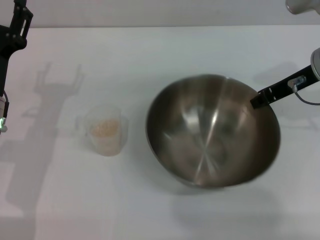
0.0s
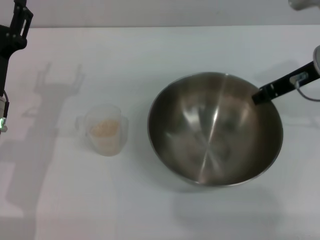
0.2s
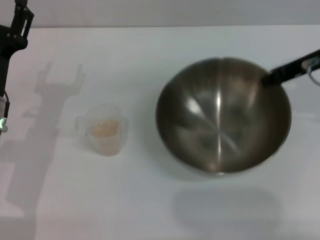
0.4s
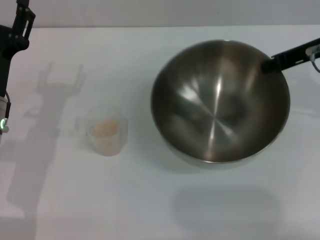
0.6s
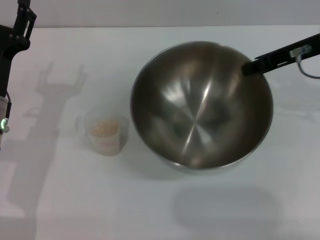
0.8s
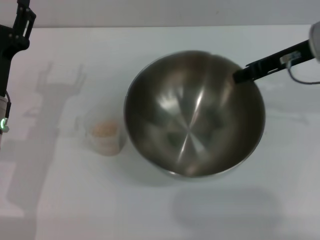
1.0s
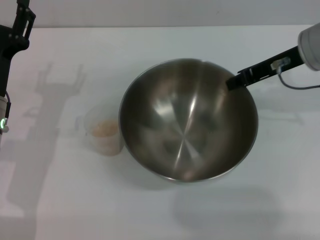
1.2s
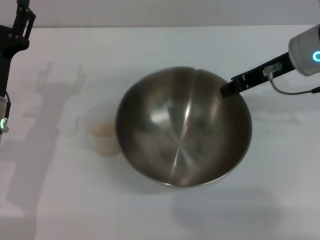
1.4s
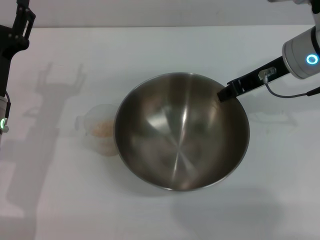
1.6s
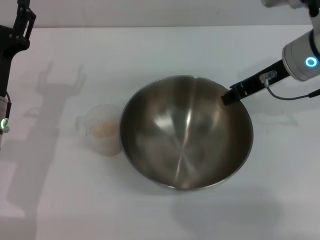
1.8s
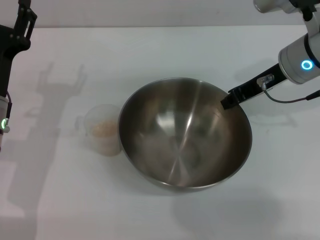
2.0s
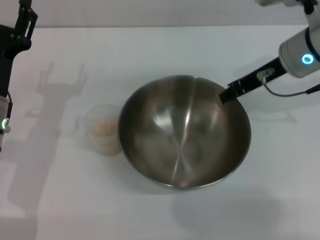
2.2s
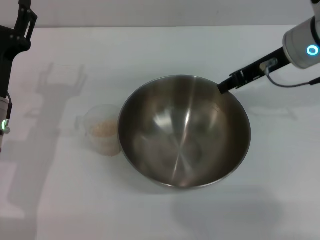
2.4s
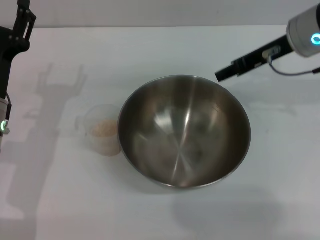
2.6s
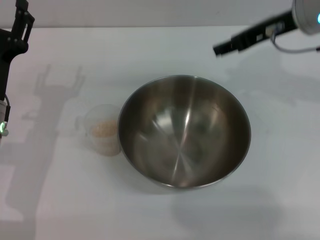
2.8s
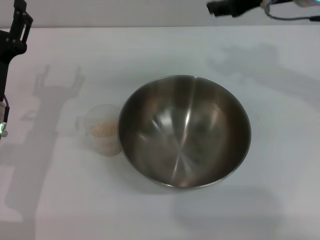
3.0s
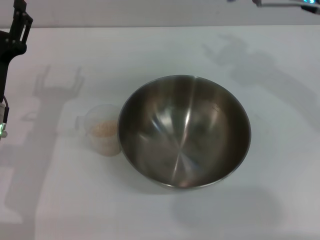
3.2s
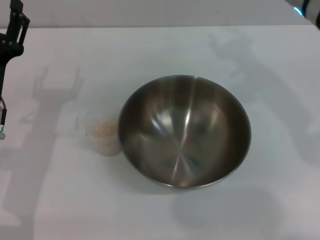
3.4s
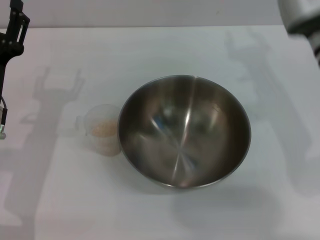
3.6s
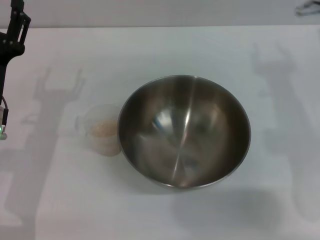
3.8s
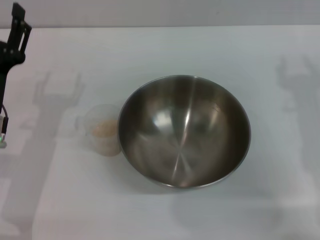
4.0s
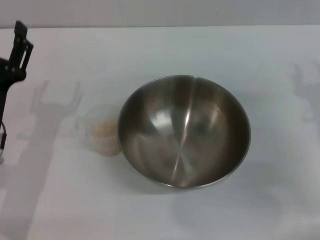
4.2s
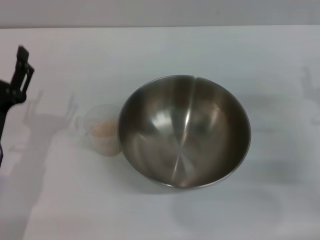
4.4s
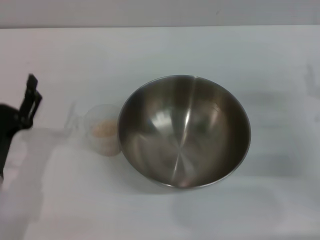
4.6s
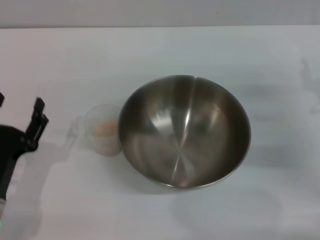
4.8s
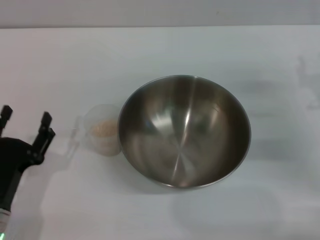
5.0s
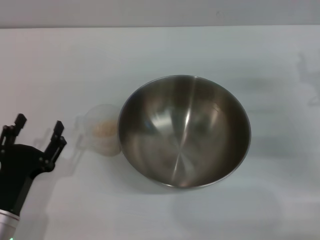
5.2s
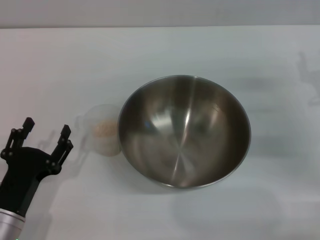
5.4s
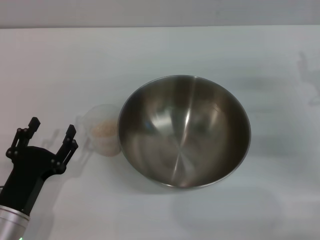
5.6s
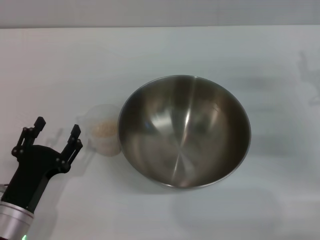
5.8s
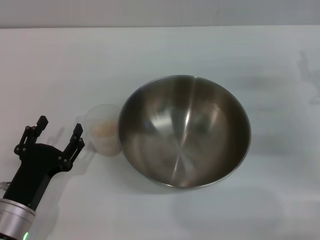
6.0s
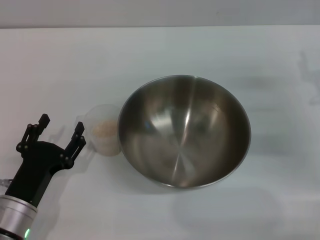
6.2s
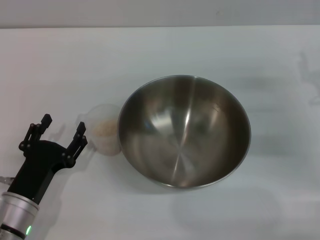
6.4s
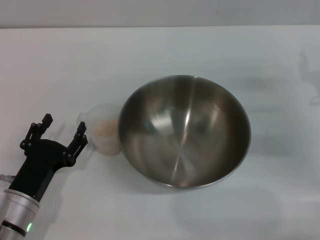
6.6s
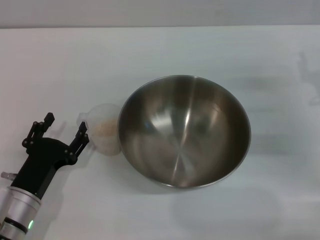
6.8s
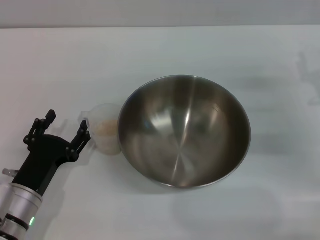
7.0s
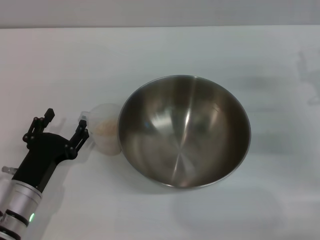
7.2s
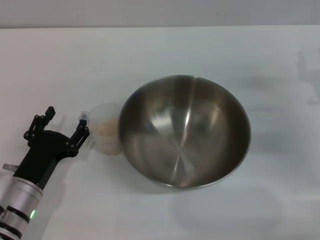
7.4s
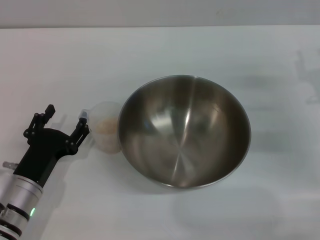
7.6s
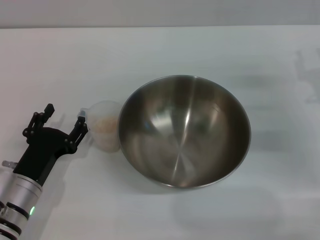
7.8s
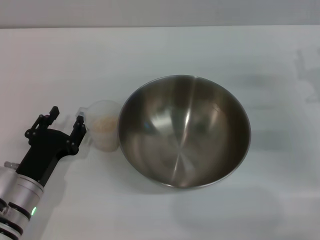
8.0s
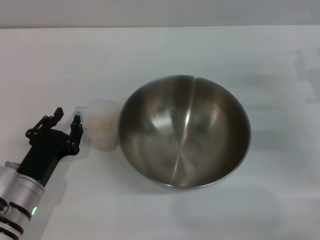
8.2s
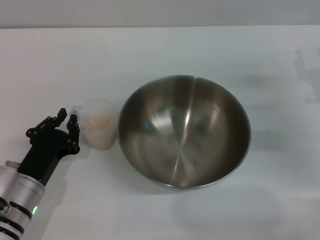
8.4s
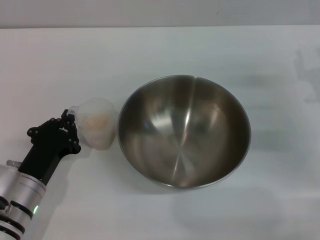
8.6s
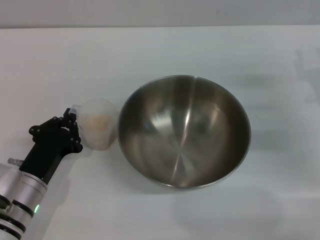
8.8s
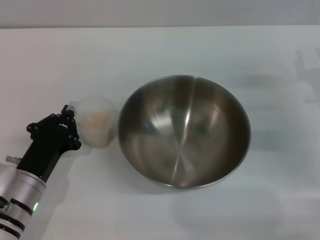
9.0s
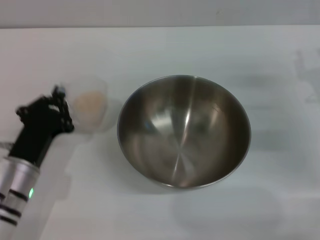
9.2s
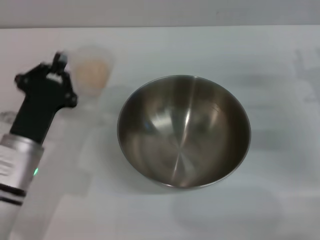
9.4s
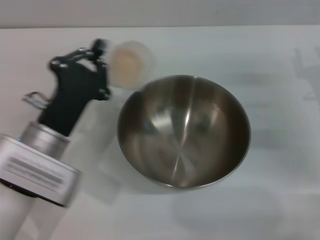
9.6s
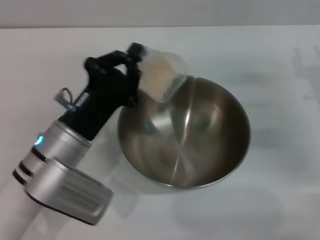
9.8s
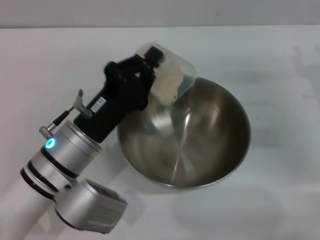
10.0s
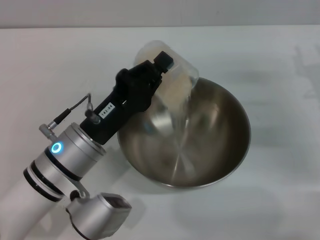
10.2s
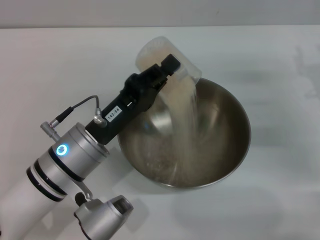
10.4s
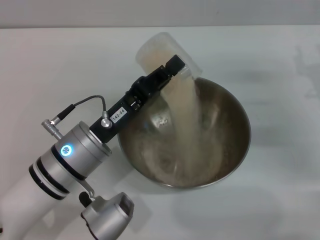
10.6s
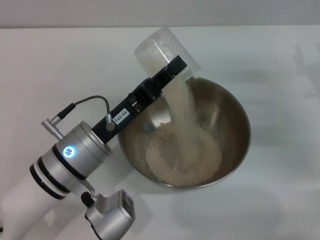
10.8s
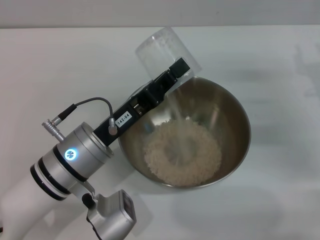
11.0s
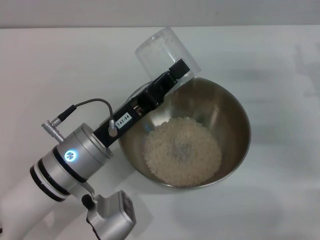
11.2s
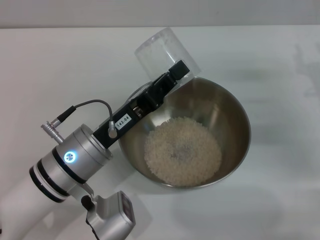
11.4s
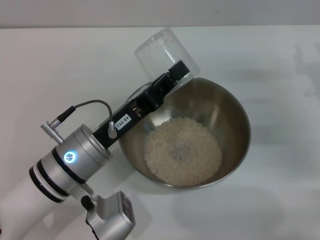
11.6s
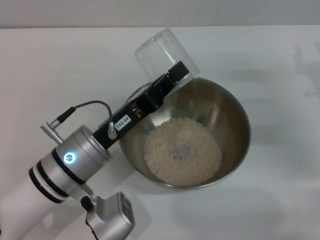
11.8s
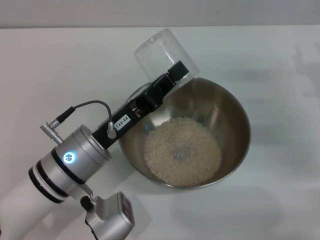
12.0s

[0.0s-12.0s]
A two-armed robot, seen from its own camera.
Task of the whole recording: Place the bowl in the middle of the table with one hand and pour the rice from the grain cup into it with the other hand.
Step, 0.6s to 2.4s: Place the bowl in the center of view with the right gripper.
Step, 2.6s to 9.2s: Pick up the cup with rice in it with the left gripper.
1.6s to 3.0s: The right gripper moves upward, about 5 cm, and opens up.
3.0s to 4.4s: The right gripper goes about 25 cm downward, backward and to the right. Meanwhile the left gripper goes some 5 cm backward.
4.4s to 6.0s: The left gripper goes roughly 5 cm backward.
6.0s to 7.6s: There are only small adjustments of the grippers.
7.6s to 9.0s: The left gripper closes up.
9.0s to 10.4s: The left gripper travels to the right and upward by some 10 cm.
10.4s to 12.0s: The grippers make only small movements.

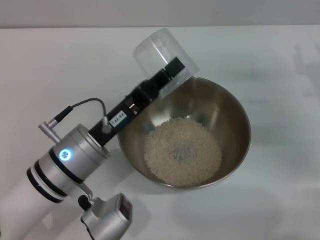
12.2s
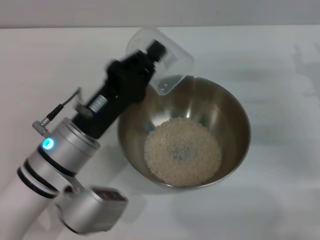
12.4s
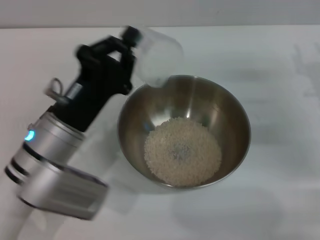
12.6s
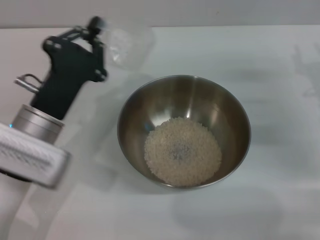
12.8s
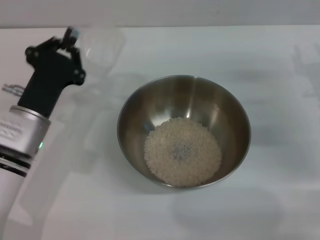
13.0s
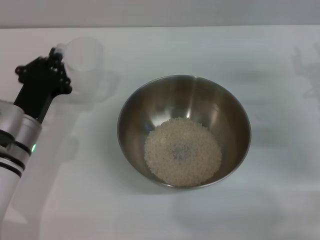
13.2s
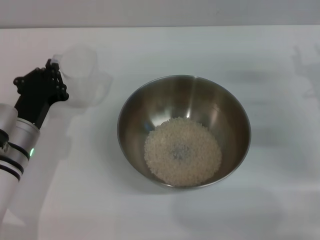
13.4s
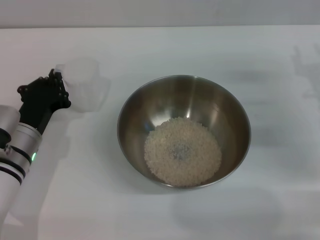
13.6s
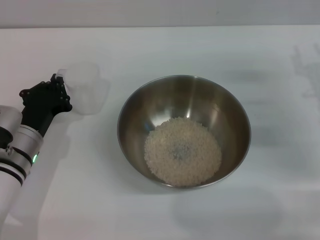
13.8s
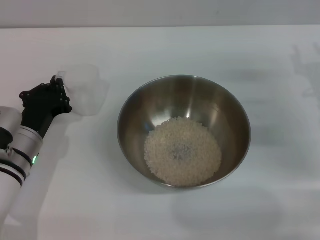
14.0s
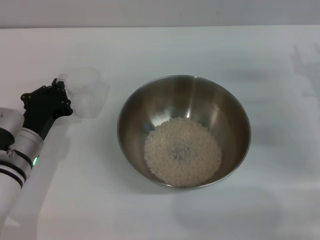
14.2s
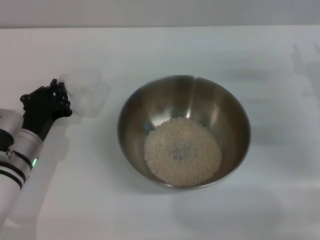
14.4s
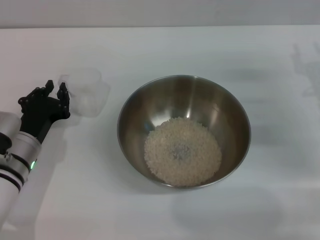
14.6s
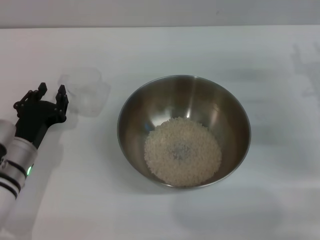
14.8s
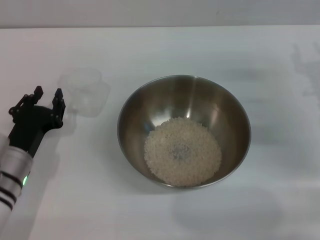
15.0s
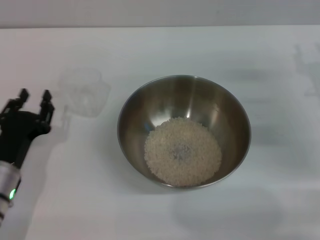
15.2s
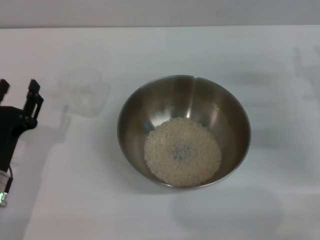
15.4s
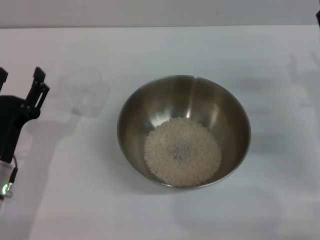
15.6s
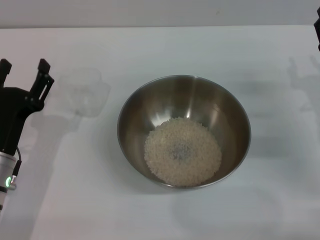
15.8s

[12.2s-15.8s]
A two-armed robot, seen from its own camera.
Task of the whole recording: Place the bowl in the middle of the table with one hand and pour the rice from the grain cup into it with the other hand.
Step, 12.4s to 15.0s: Place the cup on the table with the left gripper.
12.2s to 14.0s: The left gripper moves to the left and downward, about 10 cm.
14.0s to 15.8s: The left gripper travels backward by some 5 cm, and opens its fingers.

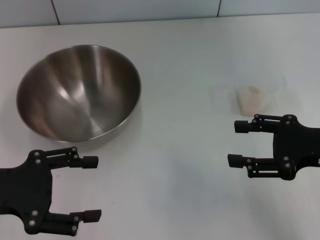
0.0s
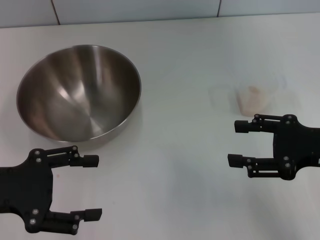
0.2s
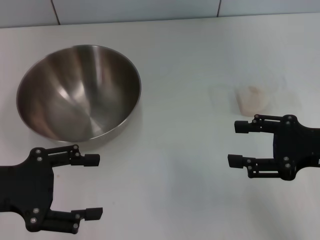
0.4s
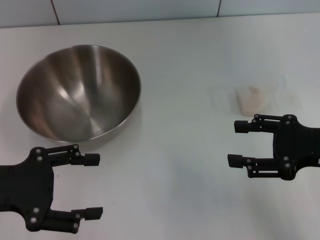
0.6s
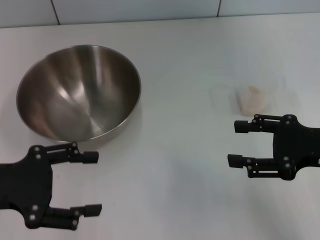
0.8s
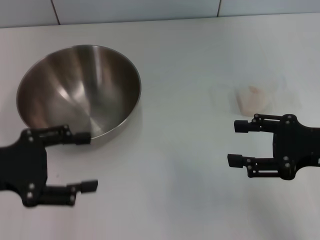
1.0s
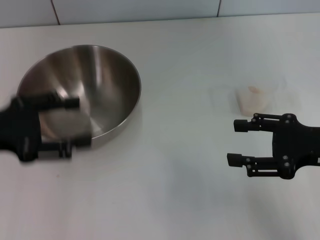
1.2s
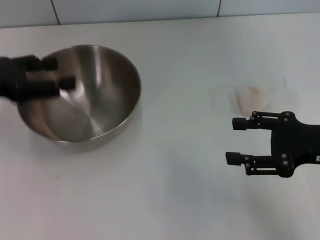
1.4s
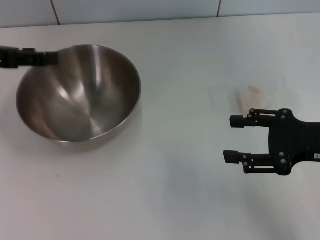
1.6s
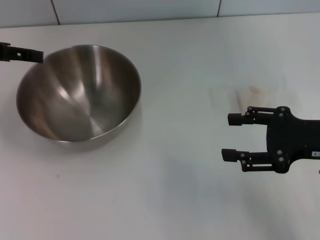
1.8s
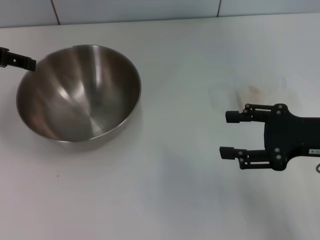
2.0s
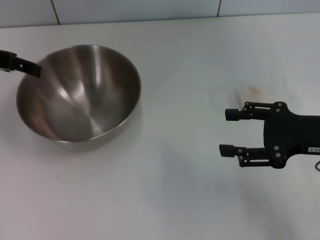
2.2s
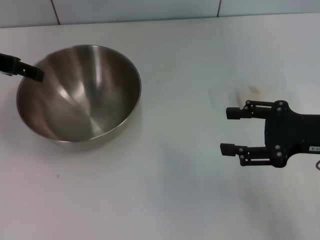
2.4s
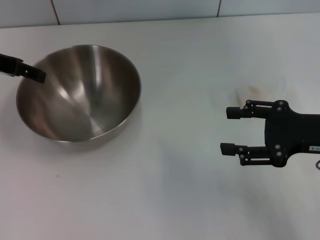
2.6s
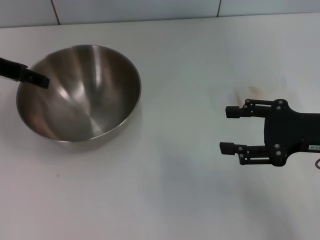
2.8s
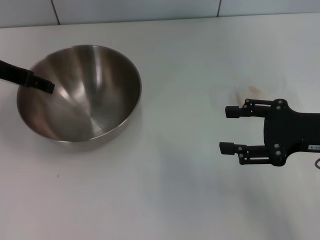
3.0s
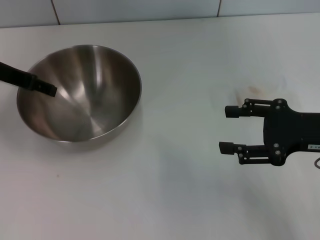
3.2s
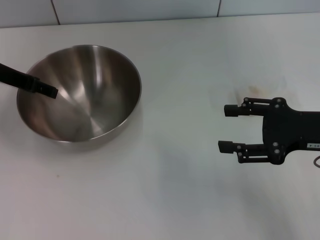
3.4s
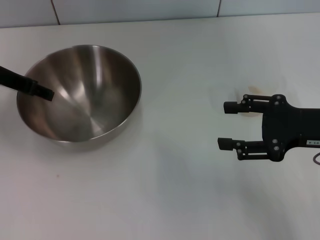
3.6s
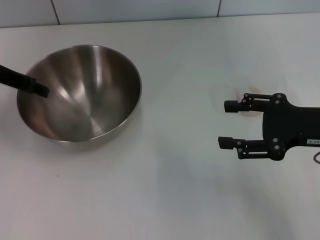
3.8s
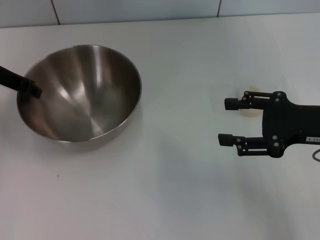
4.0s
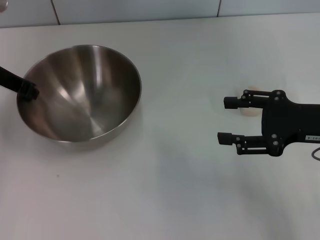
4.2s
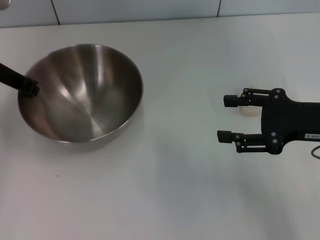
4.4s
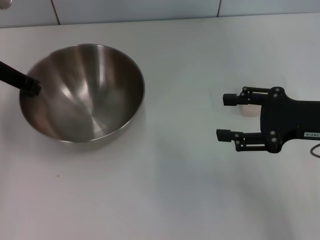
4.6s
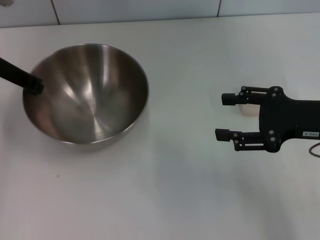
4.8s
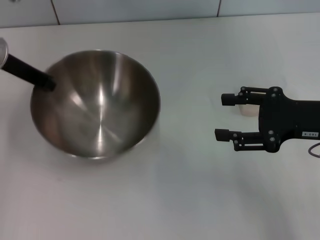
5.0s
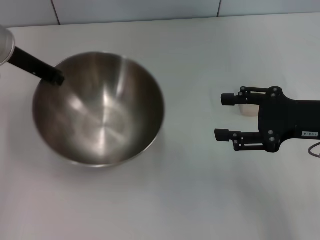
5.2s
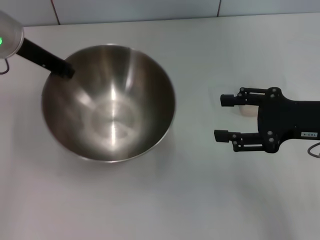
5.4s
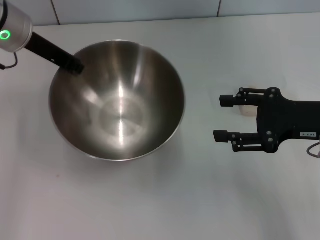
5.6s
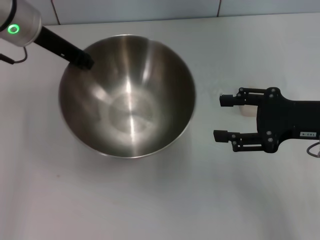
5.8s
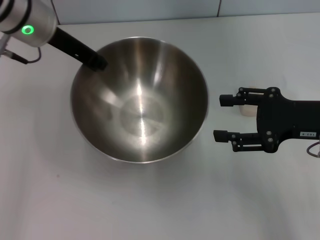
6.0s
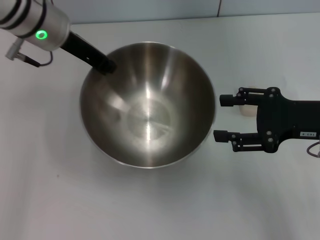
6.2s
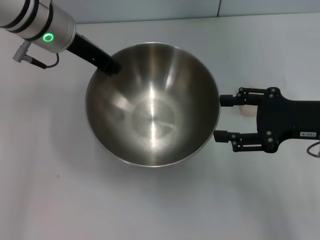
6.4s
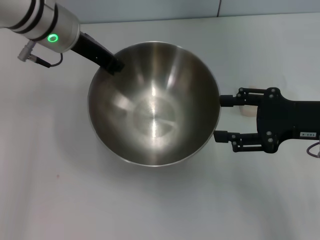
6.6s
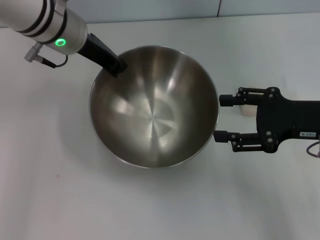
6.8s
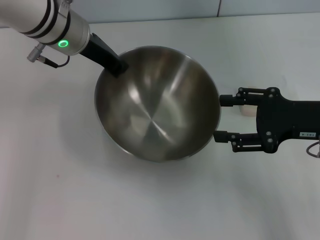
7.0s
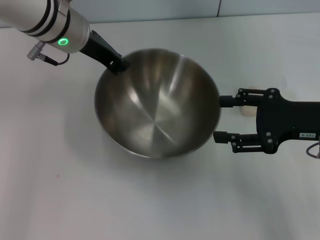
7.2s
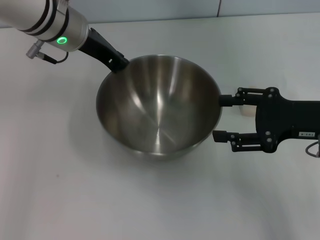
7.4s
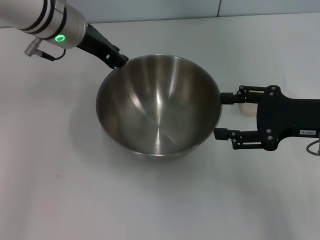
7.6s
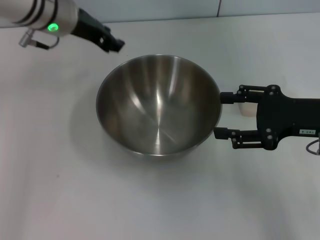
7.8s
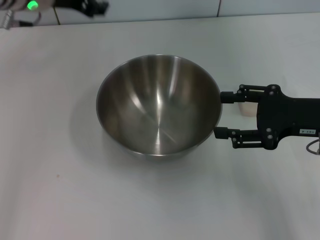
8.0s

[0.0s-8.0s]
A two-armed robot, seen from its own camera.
Task of the whole recording: Place the bowl in the middle of the table with one hand and pour the rice from the grain cup into it with the other hand.
Step, 0.0s to 5.2s: Pick up the bowl with the left gripper.
Step, 5.4s to 7.6s: Place the bowl in the center of view with the left gripper.
0.0s to 1.6s: The left gripper travels forward and upward by roughly 15 cm.
1.6s to 3.2s: The left gripper shifts roughly 5 cm forward.
3.2s to 4.8s: The left gripper closes.
4.8s to 6.4s: The left gripper moves to the right, roughly 10 cm.
6.4s to 8.0s: The left gripper opens up.
